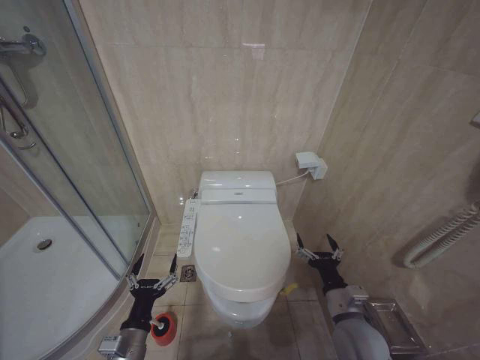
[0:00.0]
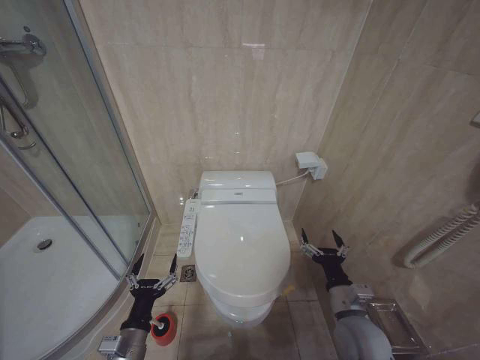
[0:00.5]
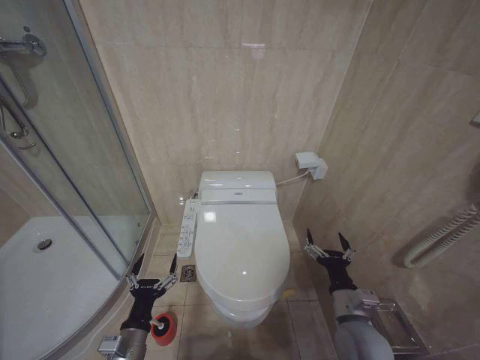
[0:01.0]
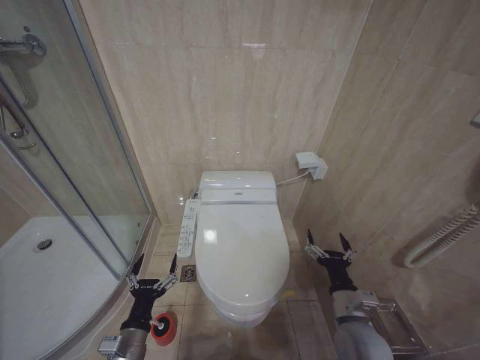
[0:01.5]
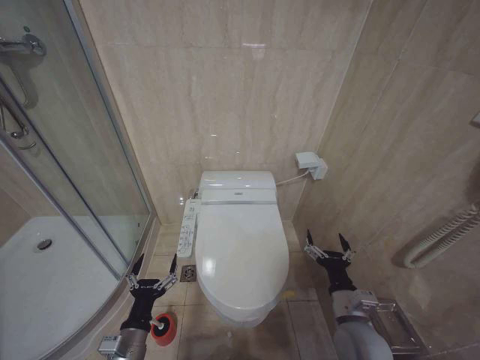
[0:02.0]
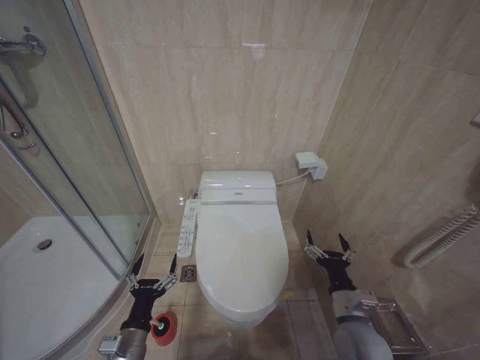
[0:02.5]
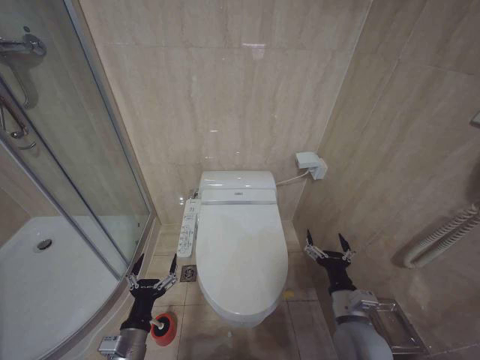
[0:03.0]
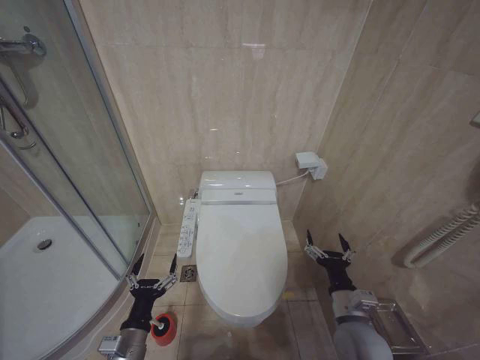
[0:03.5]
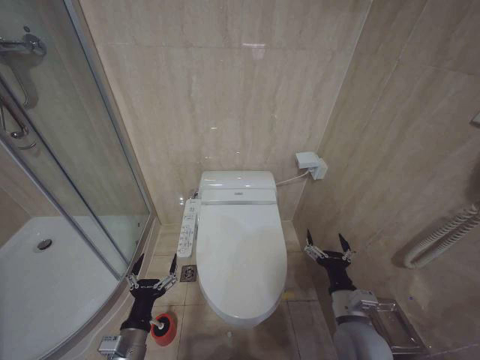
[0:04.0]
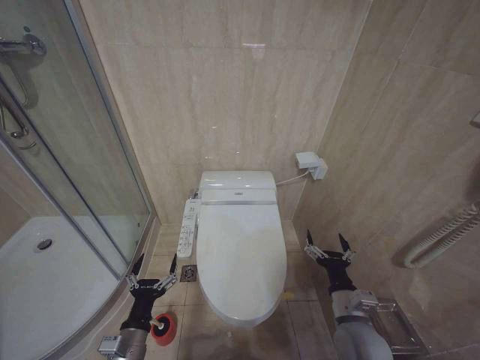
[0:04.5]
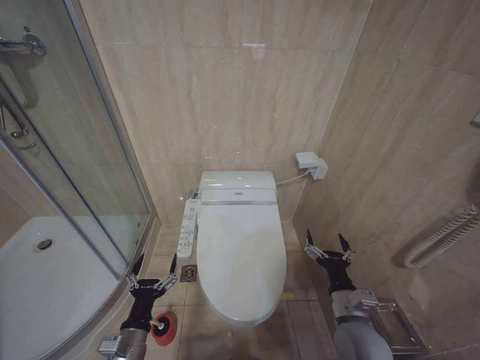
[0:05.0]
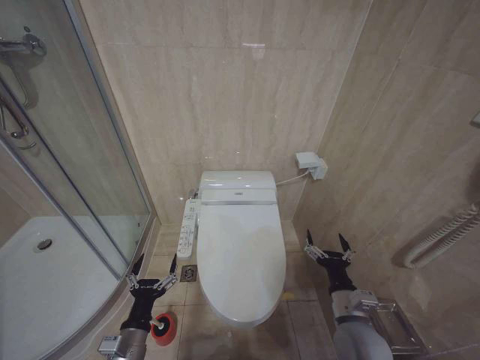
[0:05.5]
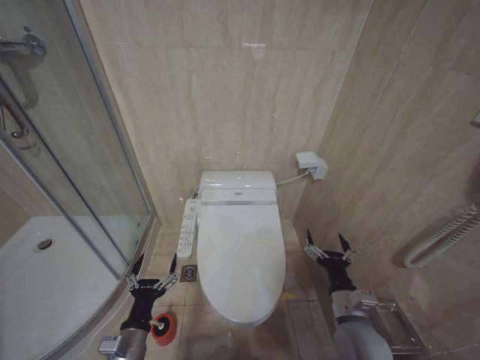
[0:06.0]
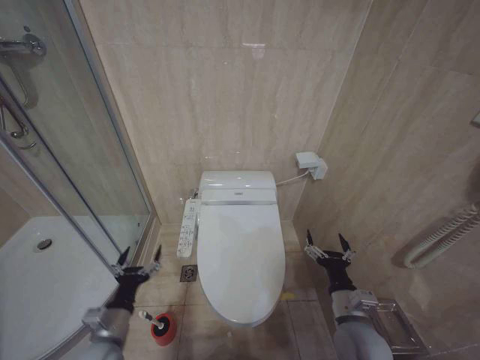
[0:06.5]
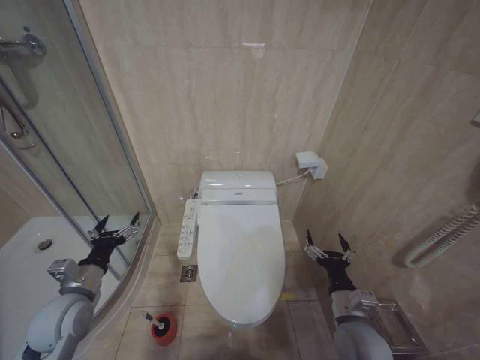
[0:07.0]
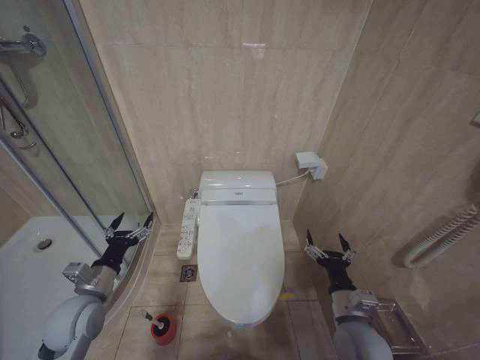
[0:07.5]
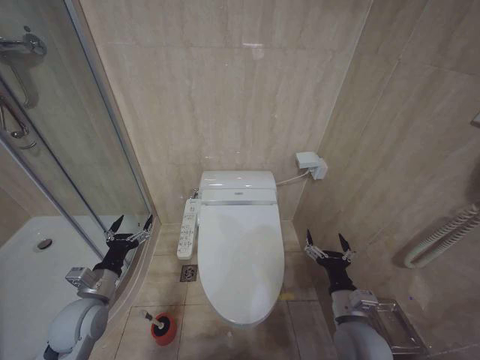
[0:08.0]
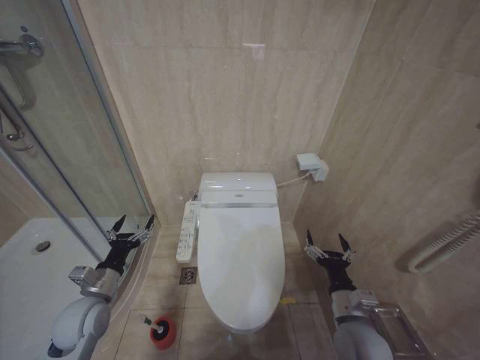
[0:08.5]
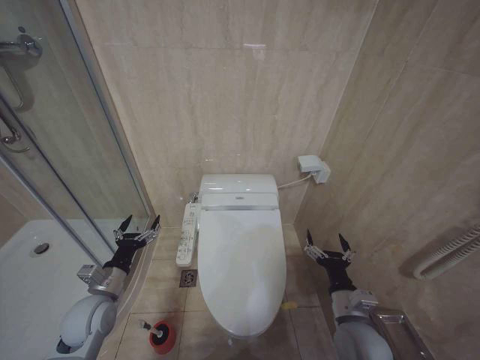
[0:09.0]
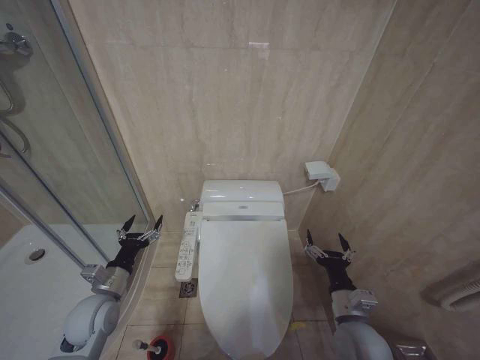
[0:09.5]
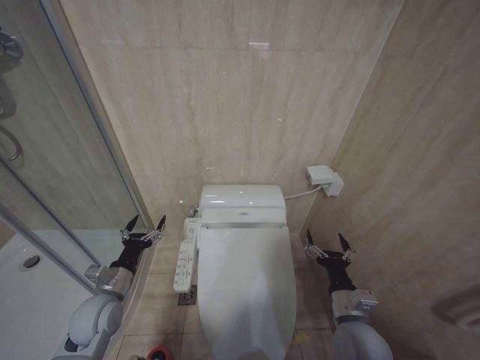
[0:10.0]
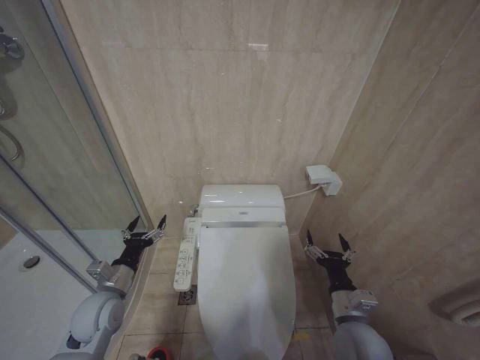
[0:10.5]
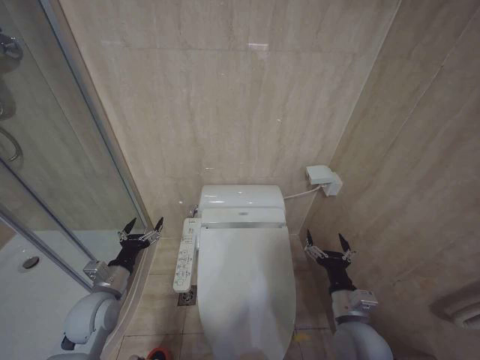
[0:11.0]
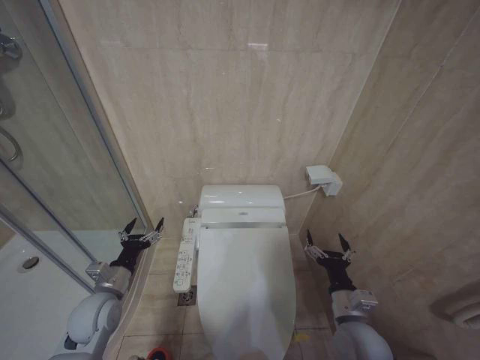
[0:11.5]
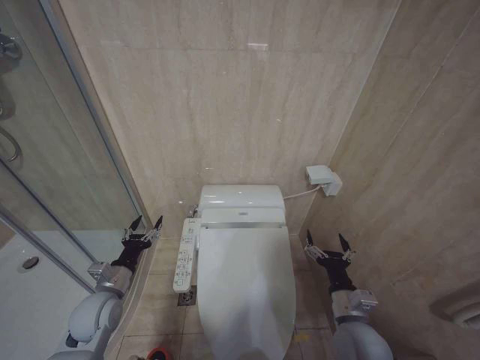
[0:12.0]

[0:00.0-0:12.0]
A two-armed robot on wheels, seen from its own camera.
Task of the whole recording: Open the toilet lid, clean the toilet bowl with a toilet brush, close the toilet lid, and flush.
0.0 to 2.0 s: The grippers make only small movements.
2.0 to 6.0 s: Both grippers stay put.
6.0 to 8.0 s: The left gripper moves forward, to the left and upward, approximately 15 cm.
8.0 to 10.0 s: The grippers stay close to where they were, moving slightly.
10.0 to 12.0 s: Neither gripper changes place.

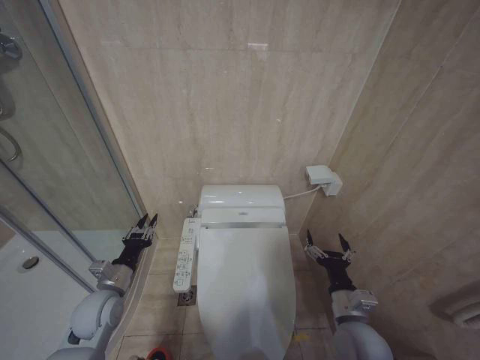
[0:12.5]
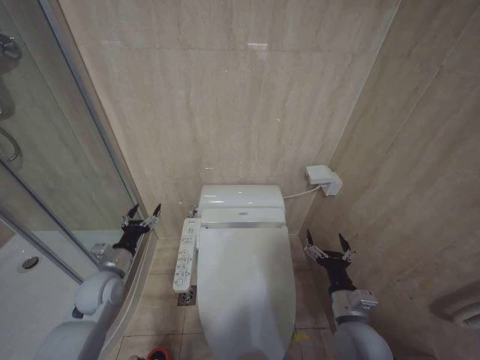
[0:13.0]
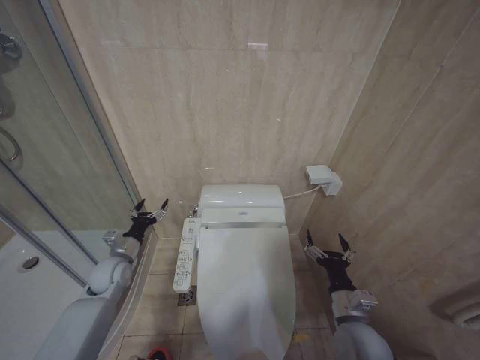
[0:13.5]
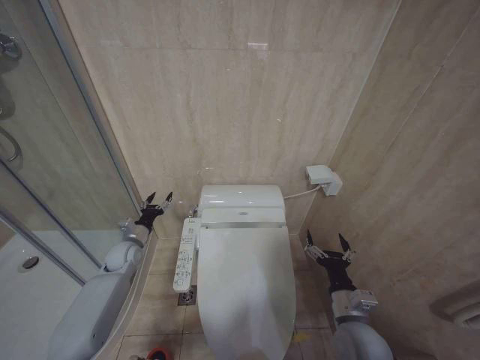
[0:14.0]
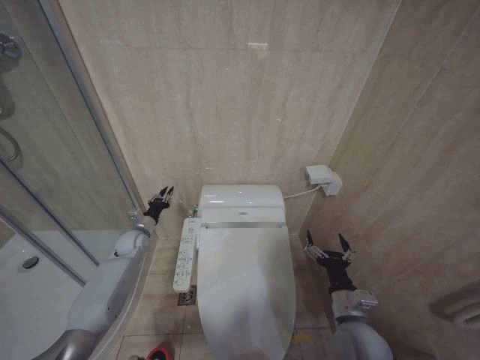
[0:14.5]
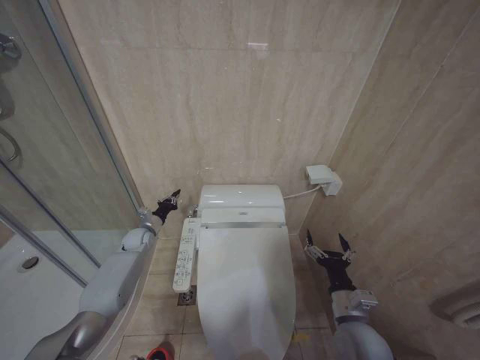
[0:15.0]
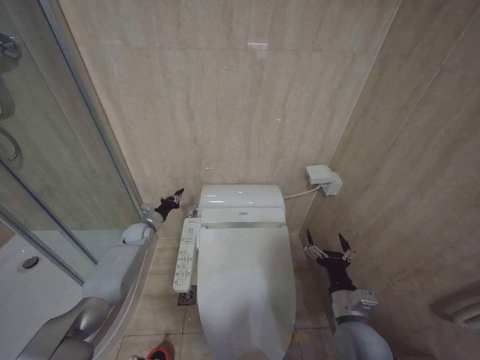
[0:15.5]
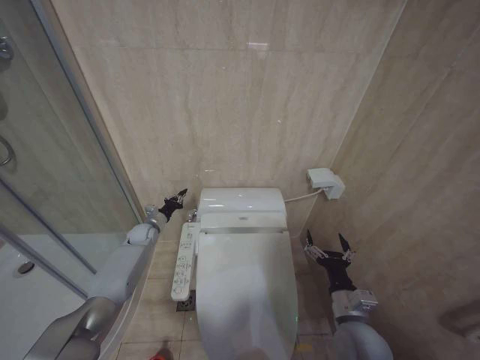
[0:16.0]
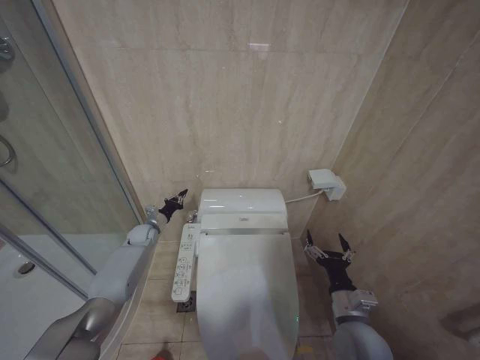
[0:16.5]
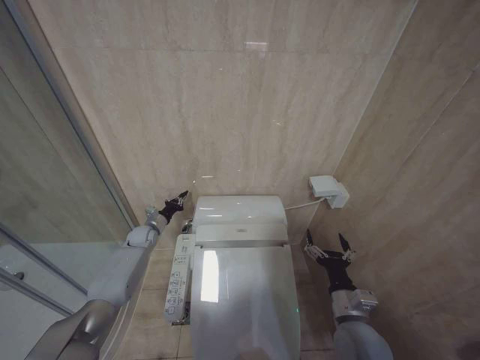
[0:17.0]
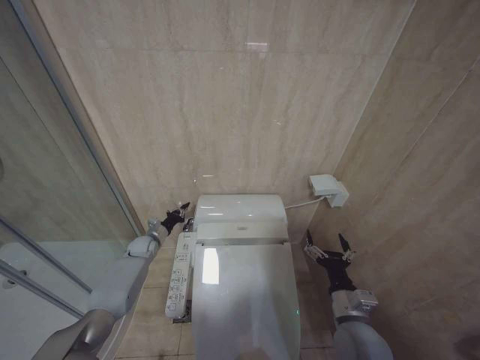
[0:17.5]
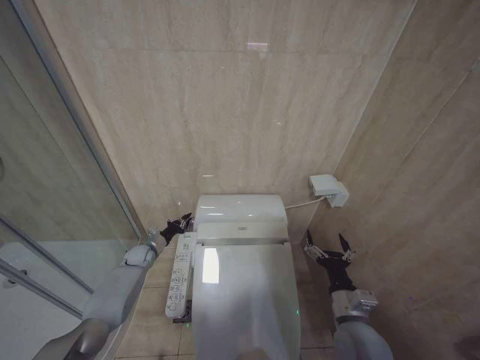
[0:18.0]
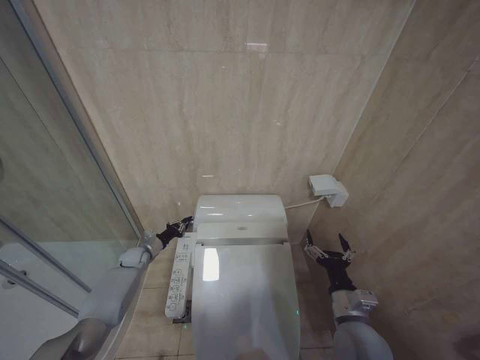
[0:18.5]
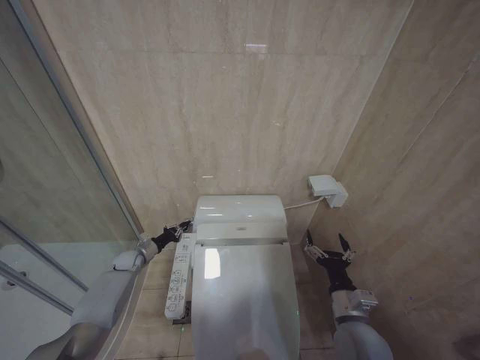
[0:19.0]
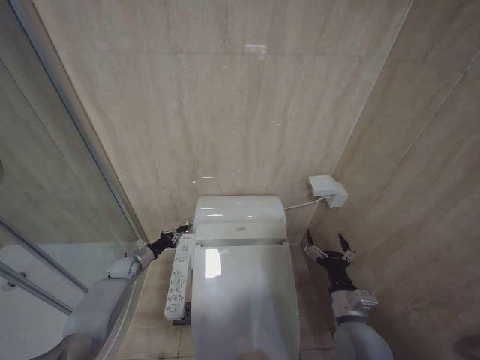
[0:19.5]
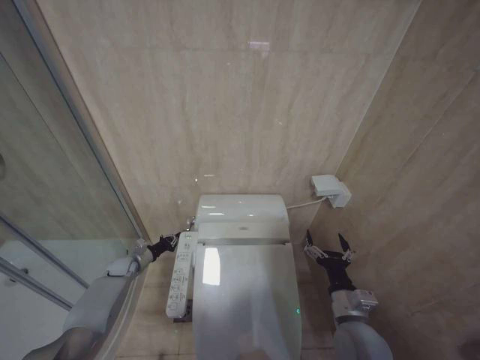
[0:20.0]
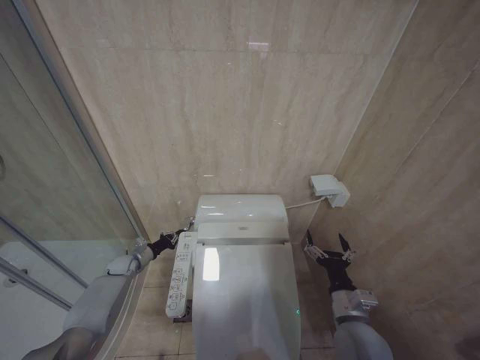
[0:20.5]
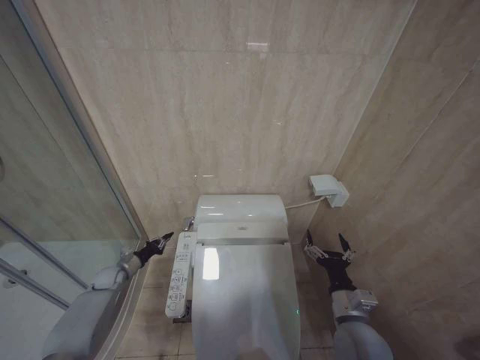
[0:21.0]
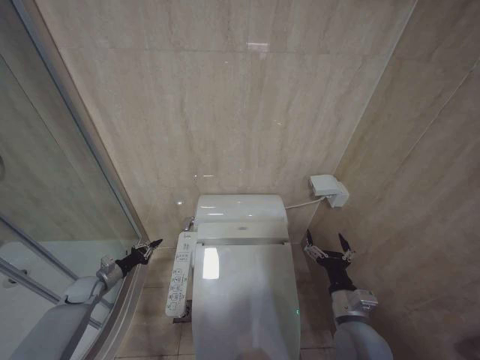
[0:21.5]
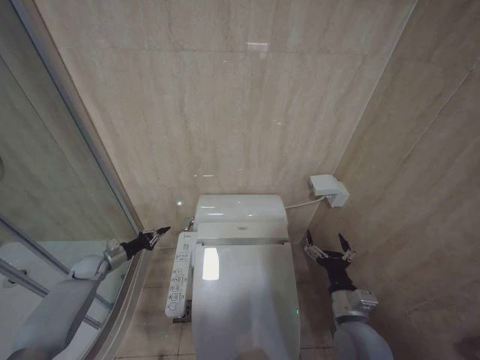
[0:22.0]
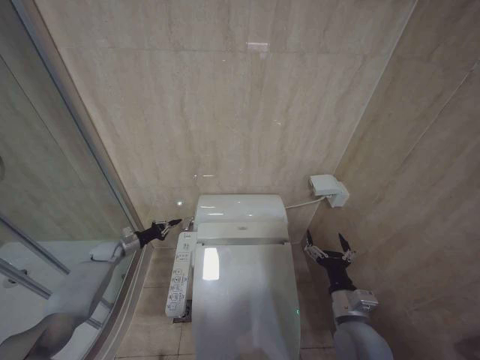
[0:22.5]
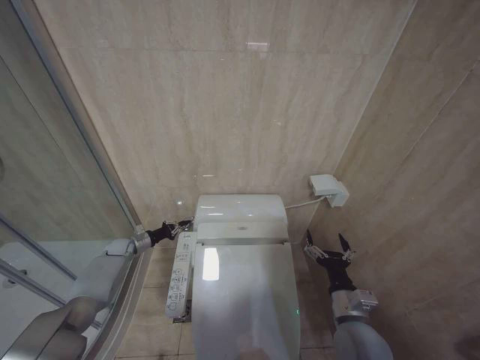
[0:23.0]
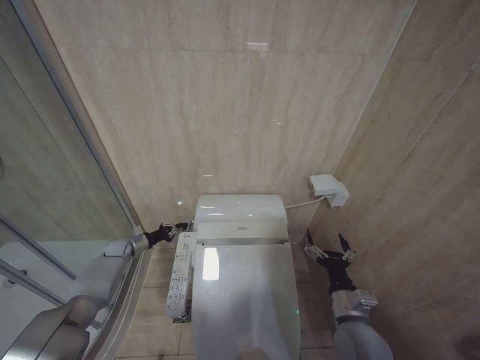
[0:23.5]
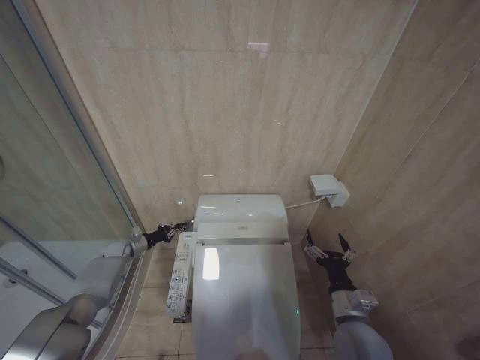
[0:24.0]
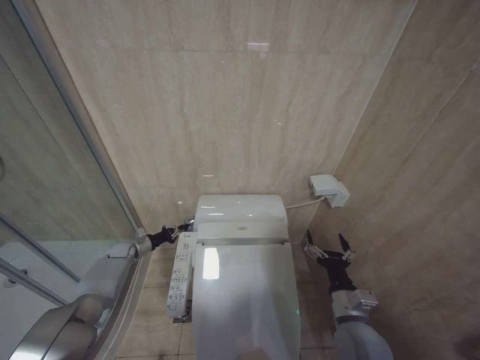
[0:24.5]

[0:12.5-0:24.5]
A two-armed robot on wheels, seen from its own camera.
Task of the whole recording: Open the toilet lid, clean the toilet bowl with a toilet brush, close the toilet lid, and flush.
12.5 to 14.5 s: The left gripper goes approximately 20 cm forward, and opens, then closes again.
14.5 to 16.5 s: The left gripper is displaced forward by some 5 cm, and closes up.
16.5 to 18.5 s: The left gripper is displaced downward by roughly 5 cm.
18.5 to 20.5 s: There are only small adjustments of the grippers.
20.5 to 22.5 s: The left gripper heads upward and to the left, covering some 10 cm, and moves about 10 cm backward and comes back.
22.5 to 24.5 s: The left gripper ends up some 5 cm from where it was.

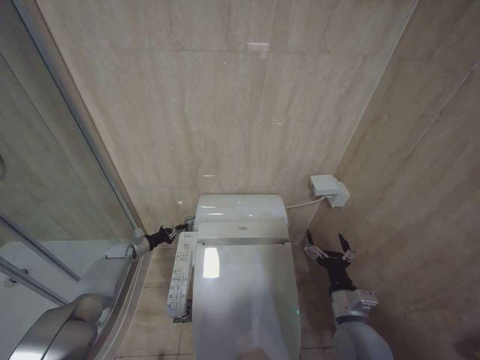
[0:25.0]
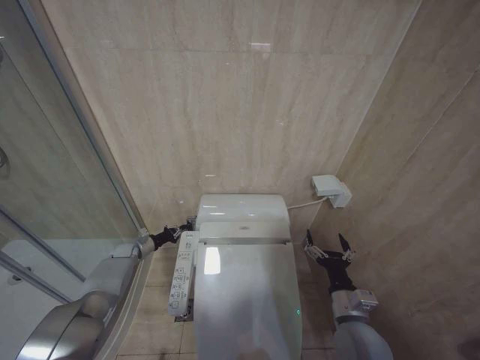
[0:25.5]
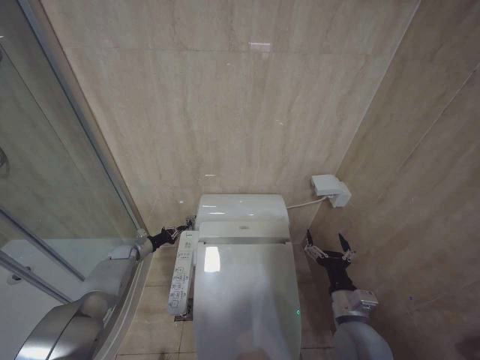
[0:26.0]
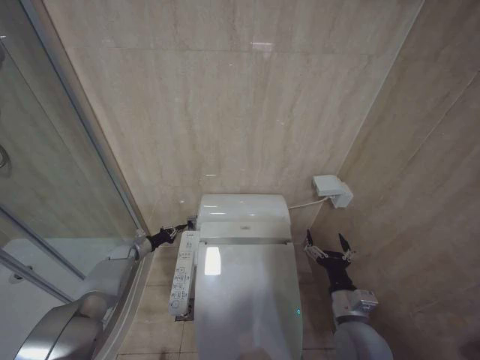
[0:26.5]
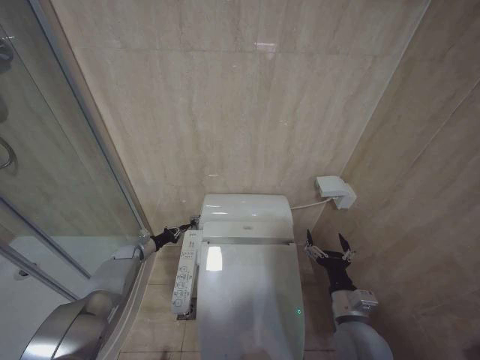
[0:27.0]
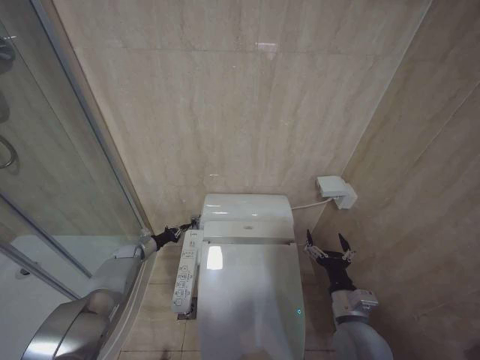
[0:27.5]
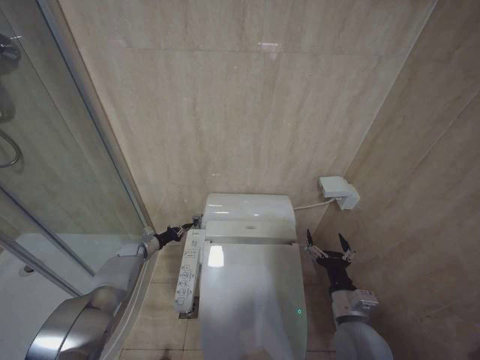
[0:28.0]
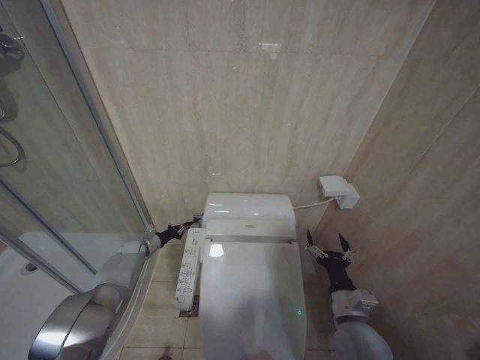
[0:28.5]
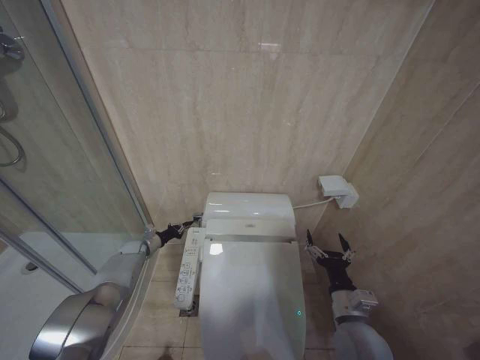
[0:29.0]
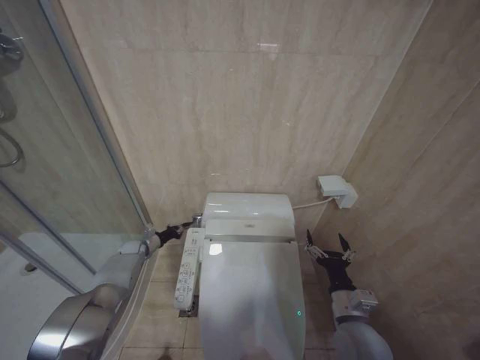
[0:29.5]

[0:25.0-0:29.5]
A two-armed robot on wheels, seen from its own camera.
Task of the whole recording: Open the toilet lid, clean the toilet bowl with a toilet brush, close the toilet lid, and flush.
25.0 to 29.5 s: There are only small adjustments of the grippers.
